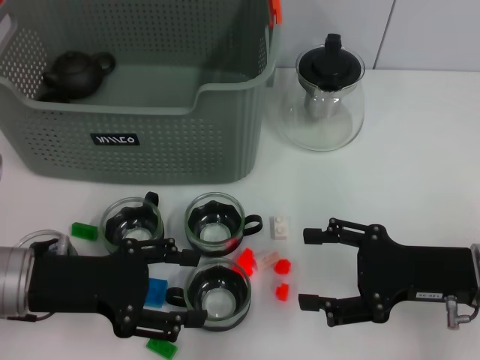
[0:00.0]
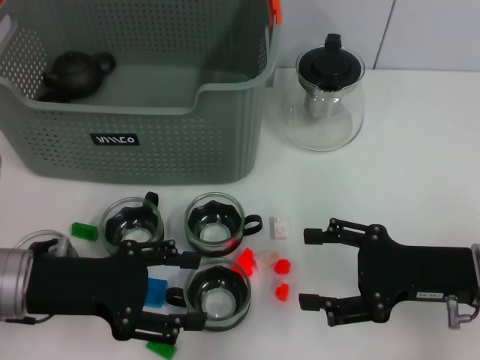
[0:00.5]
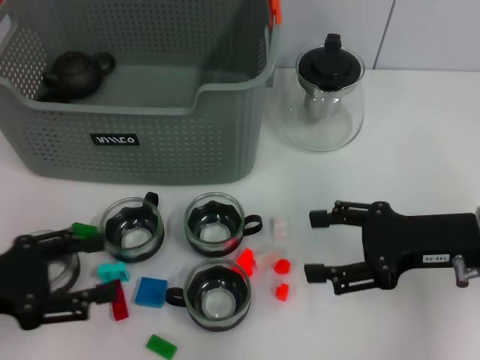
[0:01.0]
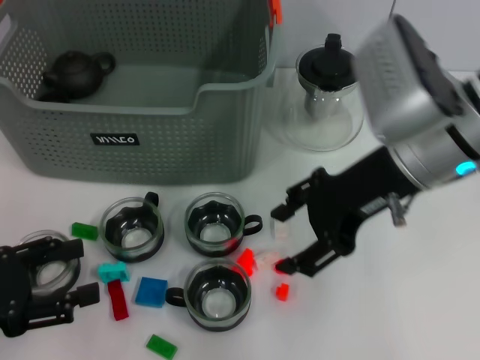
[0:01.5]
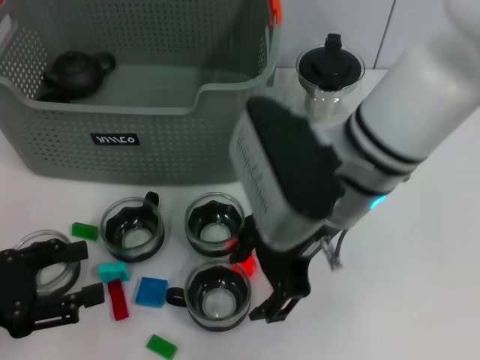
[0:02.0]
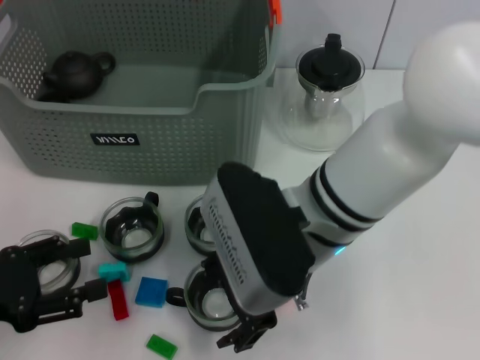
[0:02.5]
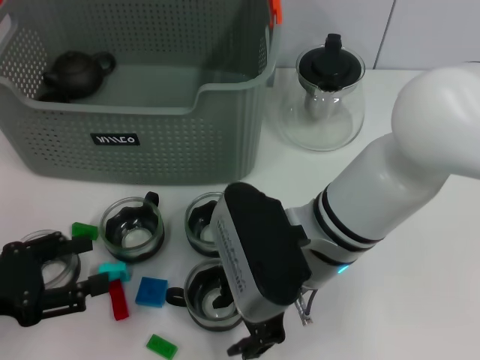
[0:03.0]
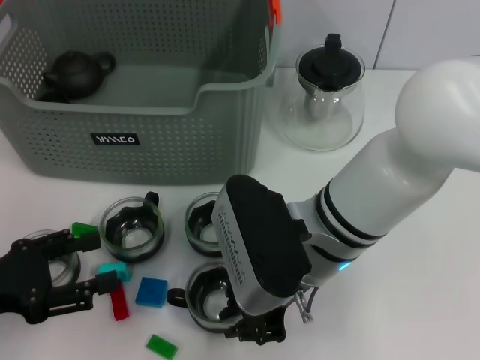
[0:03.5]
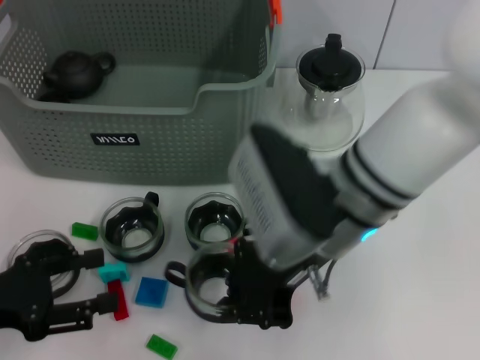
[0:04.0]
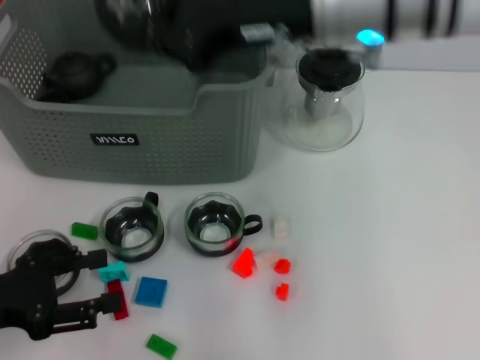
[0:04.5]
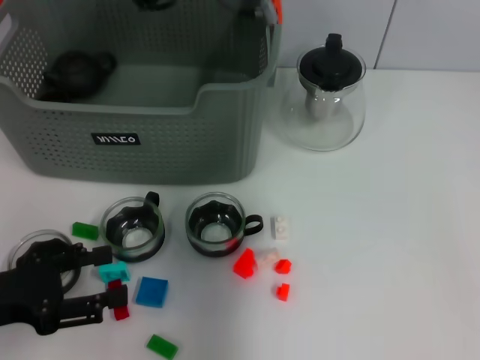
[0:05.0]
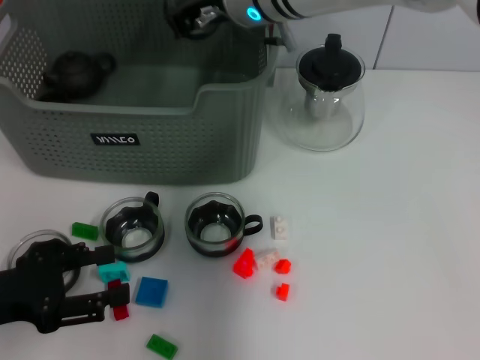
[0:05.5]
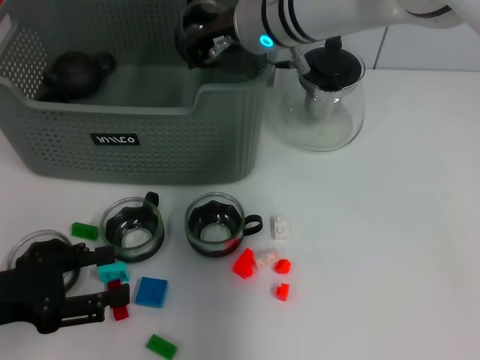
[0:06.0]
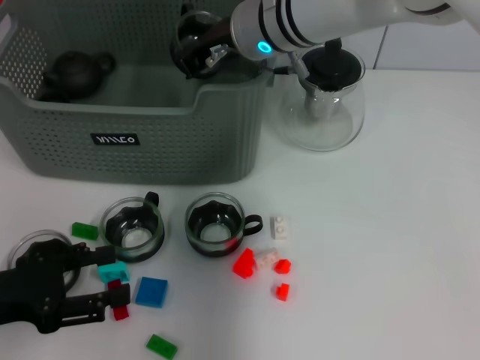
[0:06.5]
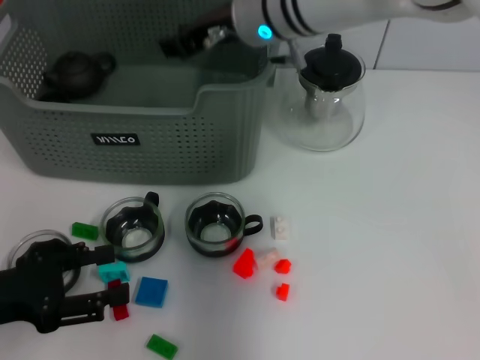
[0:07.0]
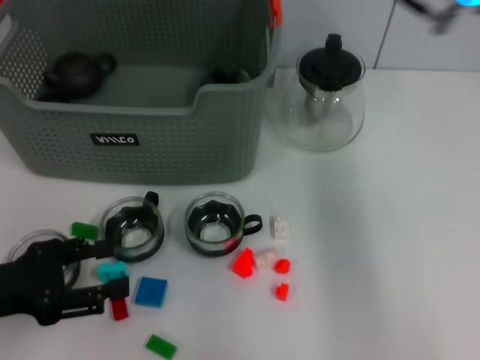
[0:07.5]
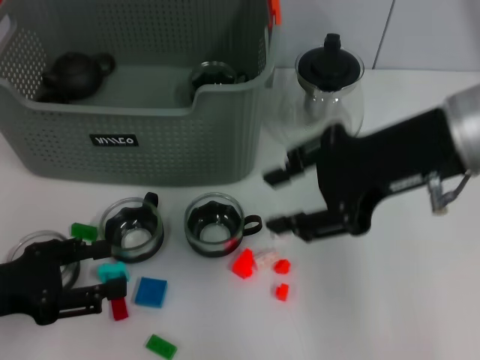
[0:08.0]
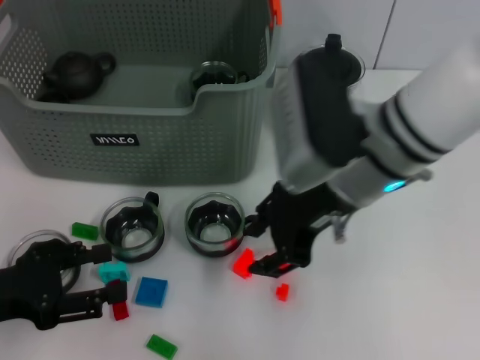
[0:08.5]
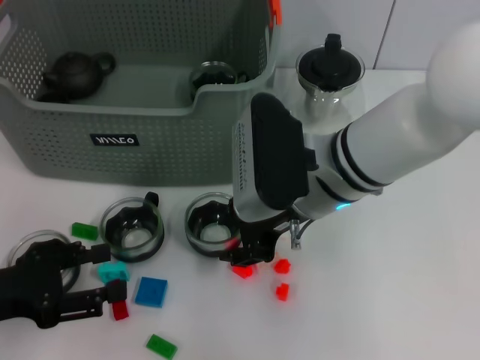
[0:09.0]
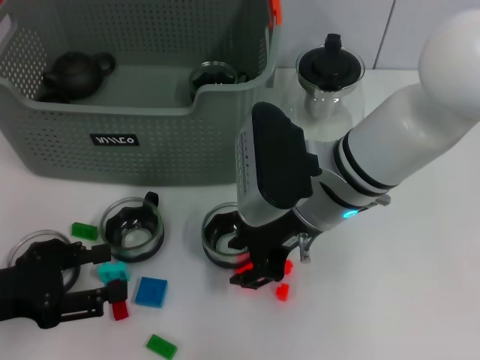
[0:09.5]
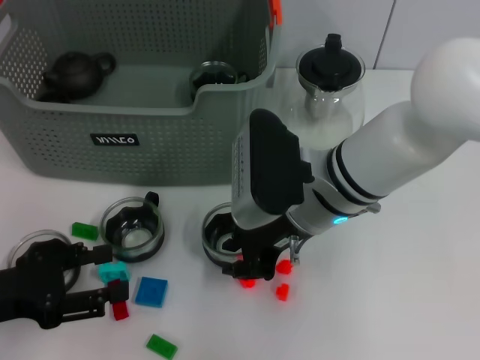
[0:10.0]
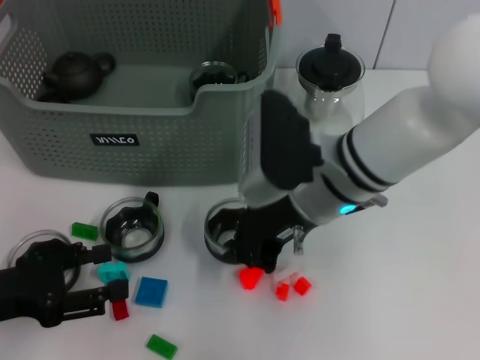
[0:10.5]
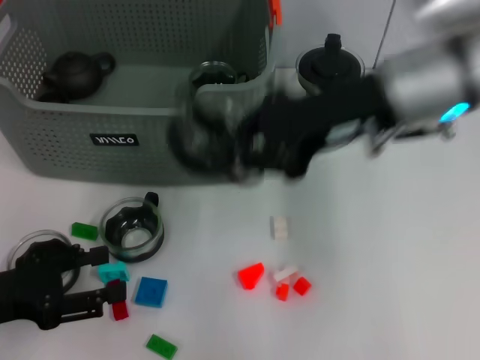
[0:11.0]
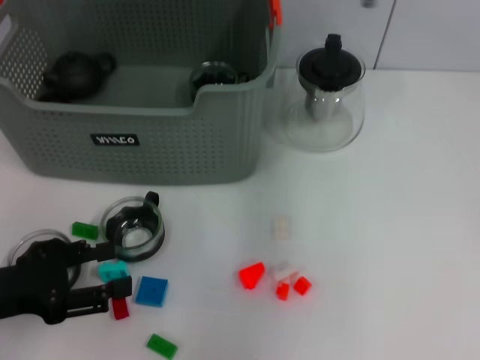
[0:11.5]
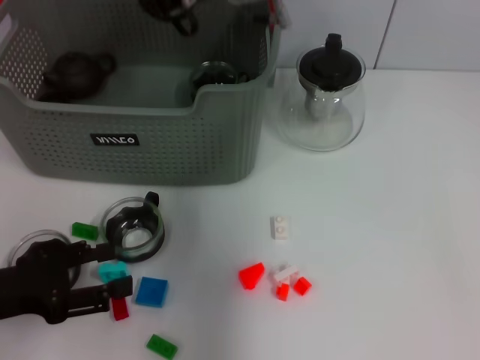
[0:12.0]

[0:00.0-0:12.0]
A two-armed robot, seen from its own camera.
Task of the whole recording: pick up the teacup on the table and place it into the storage bin, pick up the block on the table and place it into the storage bin.
Step, 0:00.0 to 0:03.0: Grasp the cup with right gripper.
Step, 0:03.5 to 0:07.0: Place the cup in the storage box with right gripper.
Step, 0:07.5 to 0:10.0: Grasp the cup with right gripper.
0:00.0 to 0:02.0: The right gripper heads to the left and upward, covering approximately 20 cm. The left gripper is displaced to the left and backward by roughly 10 cm.
0:02.0 to 0:04.0: The right gripper closes.
0:04.0 to 0:06.0: The right gripper goes about 15 cm forward.
0:06.0 to 0:08.0: The right gripper goes some 20 cm backward and to the right, and opens.
0:08.0 to 0:10.0: The right gripper is displaced downward and to the left by approximately 15 cm.
0:10.0 to 0:12.0: The right gripper travels forward, upward and to the left by about 20 cm, and closes its fingers.

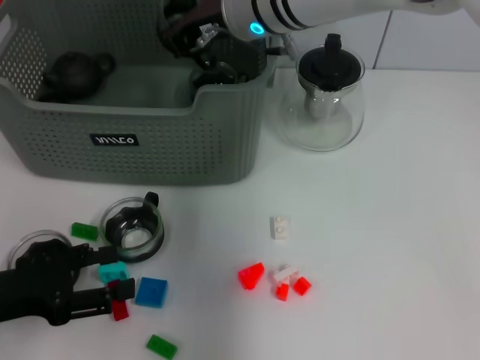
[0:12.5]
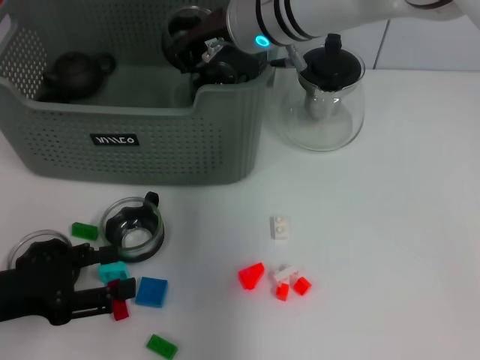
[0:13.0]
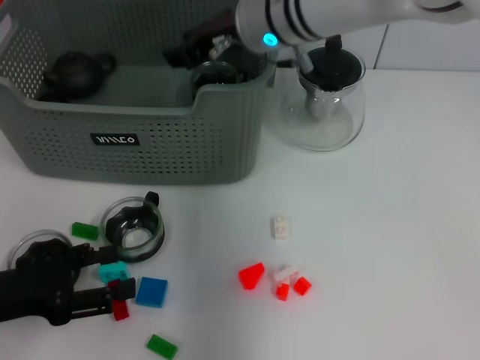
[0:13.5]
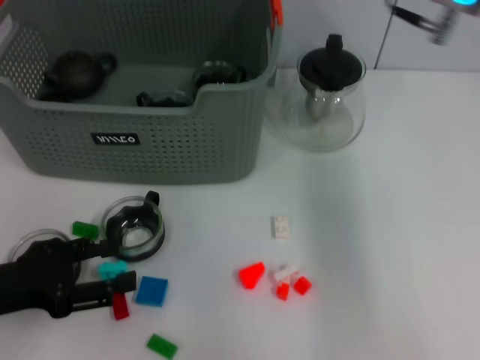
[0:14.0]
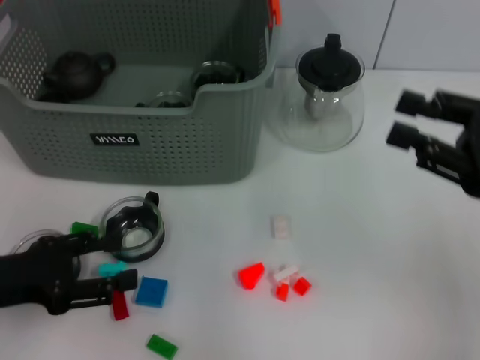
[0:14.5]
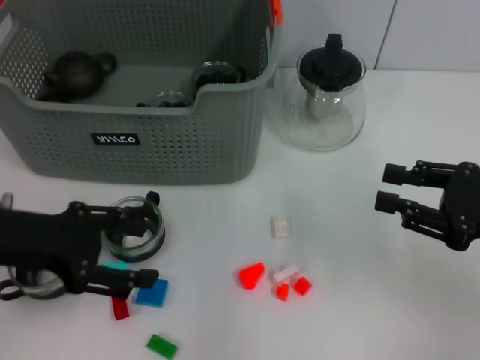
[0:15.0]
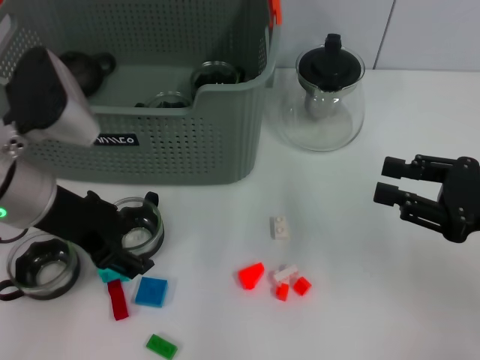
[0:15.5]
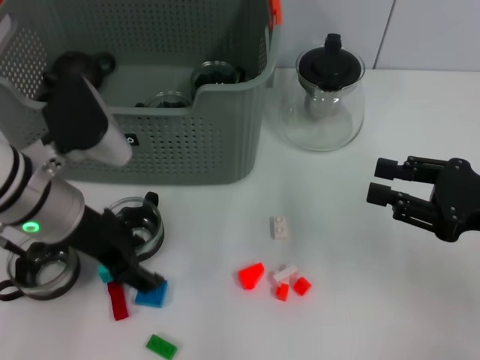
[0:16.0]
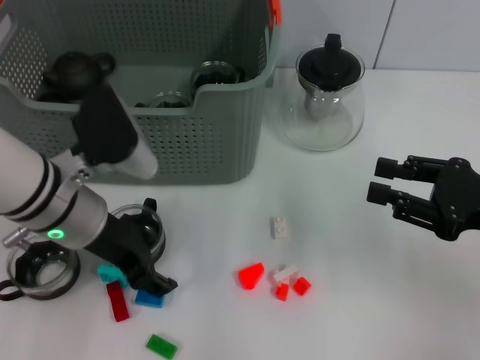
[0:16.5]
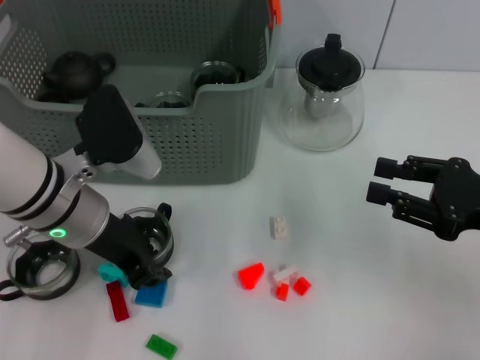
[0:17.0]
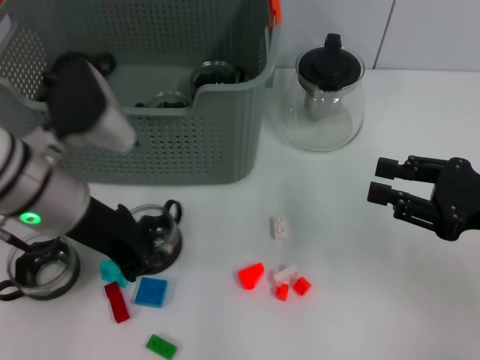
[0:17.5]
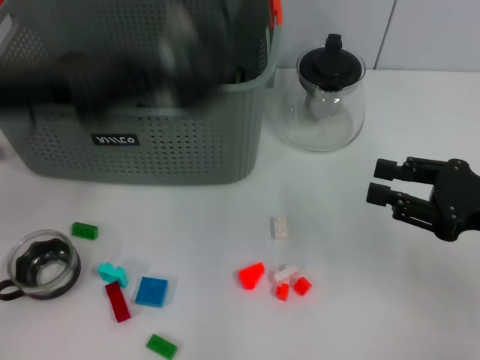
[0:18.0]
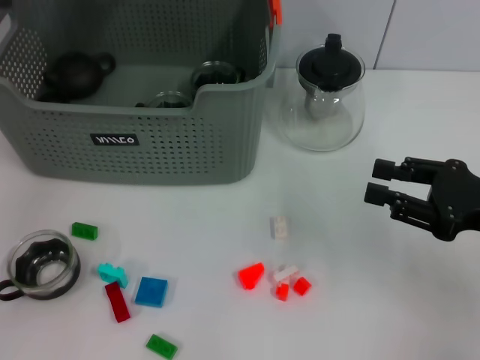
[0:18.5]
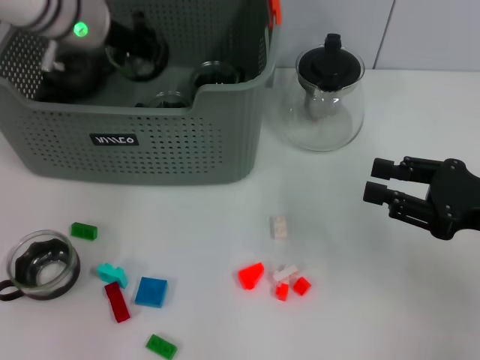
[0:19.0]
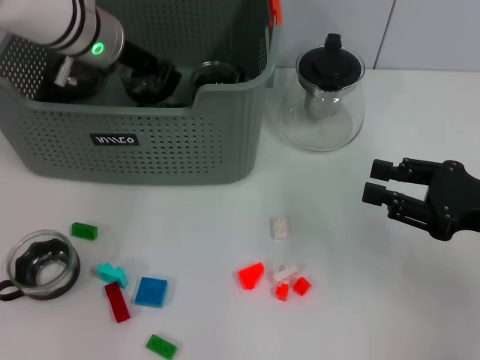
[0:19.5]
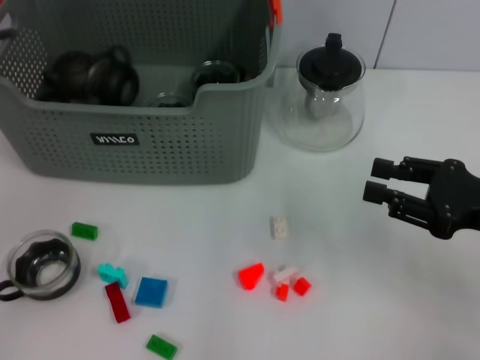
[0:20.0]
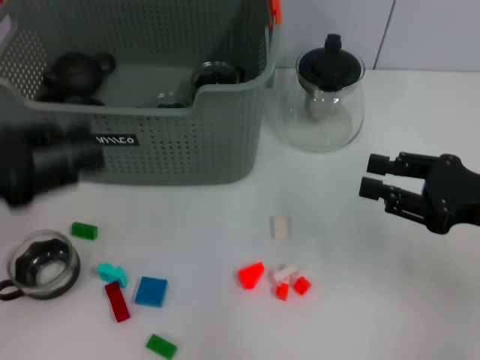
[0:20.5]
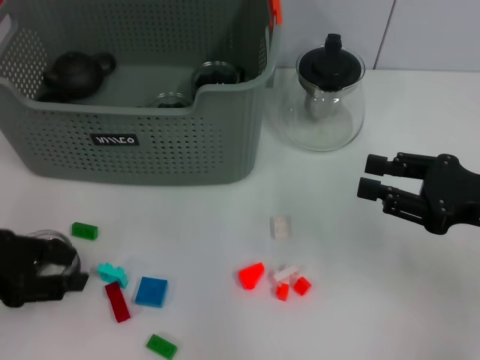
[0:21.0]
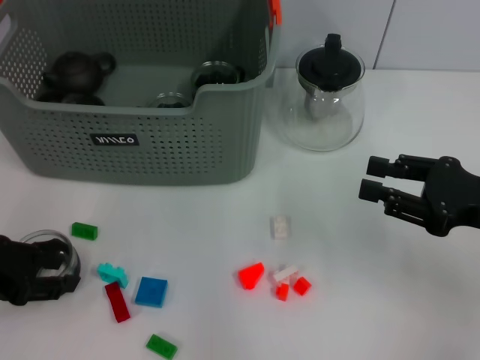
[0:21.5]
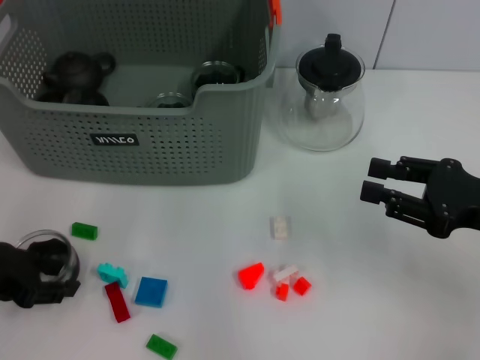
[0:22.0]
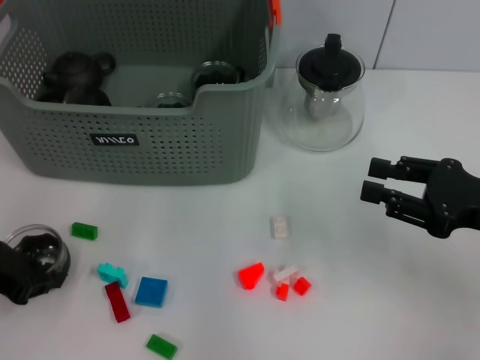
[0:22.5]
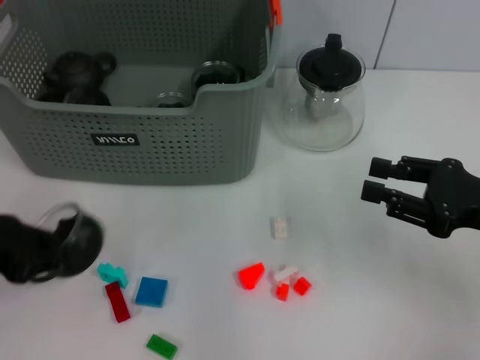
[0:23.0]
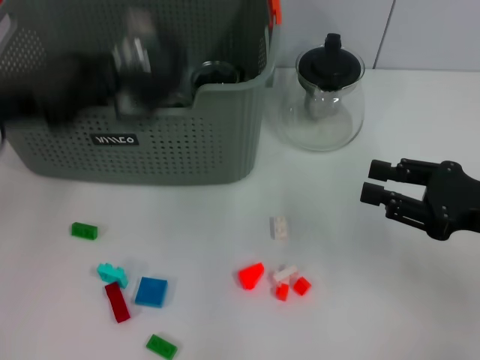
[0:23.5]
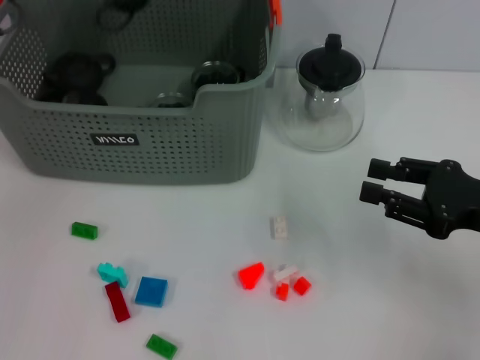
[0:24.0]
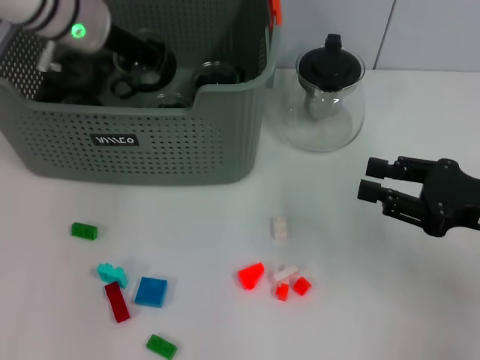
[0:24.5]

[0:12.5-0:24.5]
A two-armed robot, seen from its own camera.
Task of the whole recording: pick up the teacup on the table and place it into the storage bin, pick up the block on the table and place it into the storage bin.
Step, 0:12.5 to 0:19.5: Place the cup in the storage box with left gripper.
Step, 0:20.5 to 0:22.0: Grasp the cup with left gripper.
0:12.5 to 0:14.5: The right gripper goes approximately 35 cm to the right and backward, and opens its fingers.
0:14.5 to 0:16.5: The left gripper goes some 15 cm to the right and forward.
0:16.5 to 0:18.5: The left gripper is displaced upward, forward and to the left by about 20 cm, and closes its fingers.
0:18.5 to 0:20.5: The left gripper goes about 20 cm backward and downward, and opens.
0:20.5 to 0:22.5: The left gripper travels downward by about 5 cm.
0:22.5 to 0:24.5: The left gripper shifts approximately 25 cm forward, to the right and upward, and closes up.

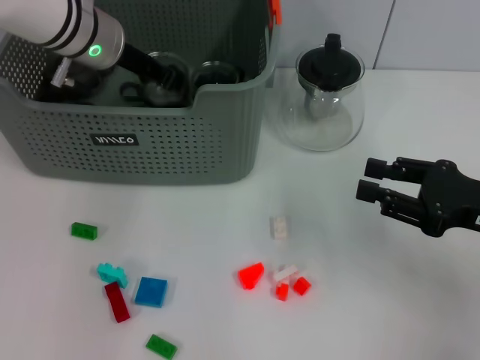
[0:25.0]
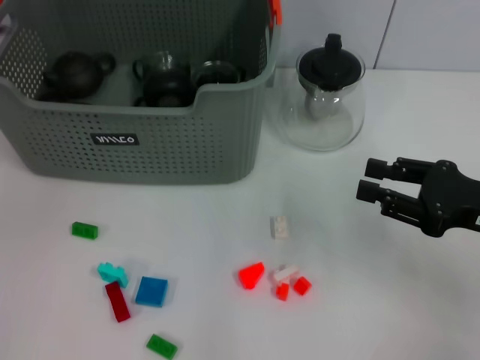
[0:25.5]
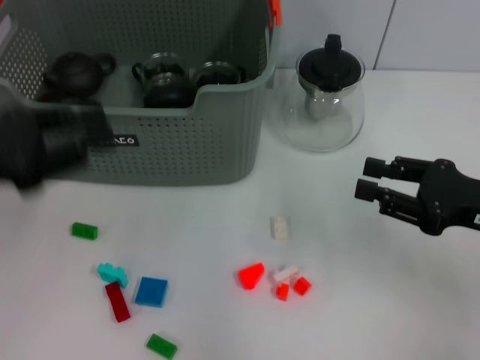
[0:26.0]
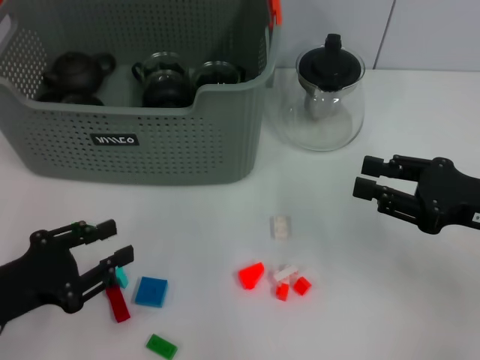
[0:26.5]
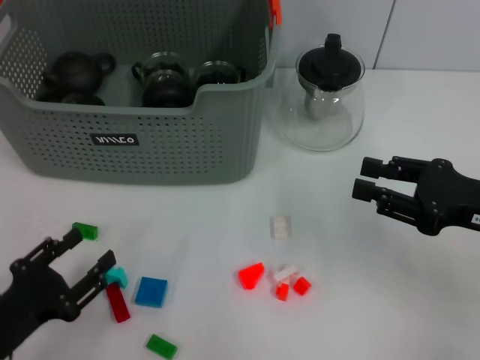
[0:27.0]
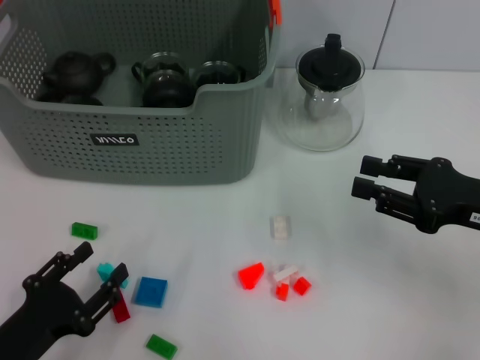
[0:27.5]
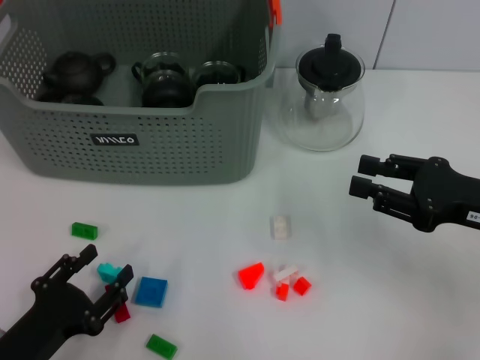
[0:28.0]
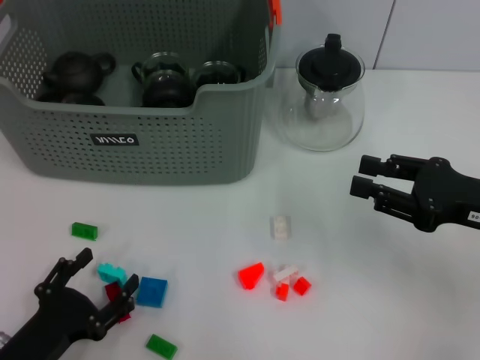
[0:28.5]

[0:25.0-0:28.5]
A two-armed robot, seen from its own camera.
Task of the whole recording: pick up the teacup on the table and place it into the storage bin, pick up the block on the table and place it into the storage bin.
0:25.0 to 0:27.0: The left gripper travels backward and downward by some 35 cm, and opens.
0:27.0 to 0:28.5: The grippers stay close to where they were, moving slightly.
